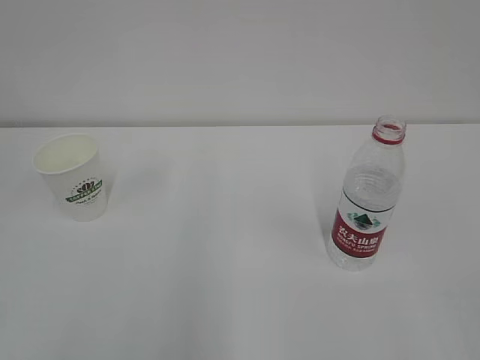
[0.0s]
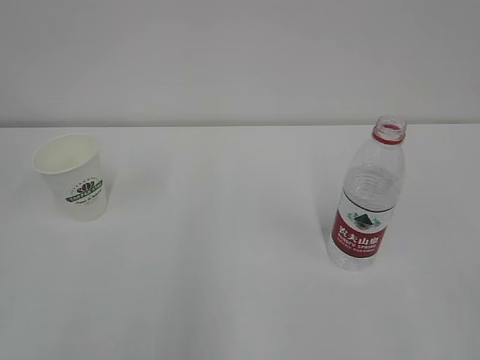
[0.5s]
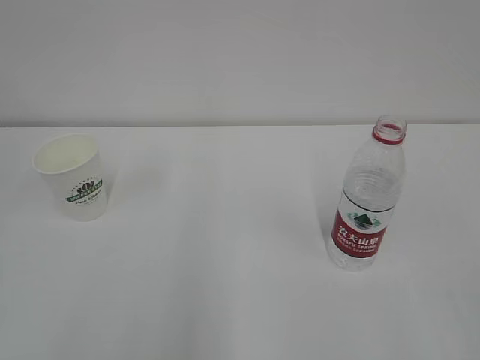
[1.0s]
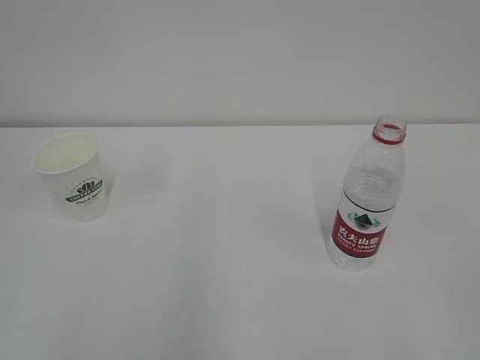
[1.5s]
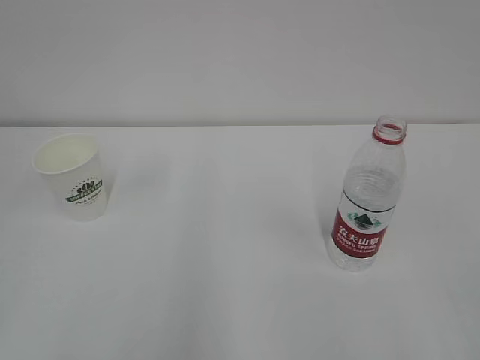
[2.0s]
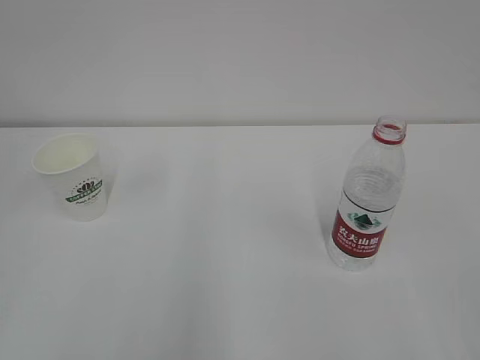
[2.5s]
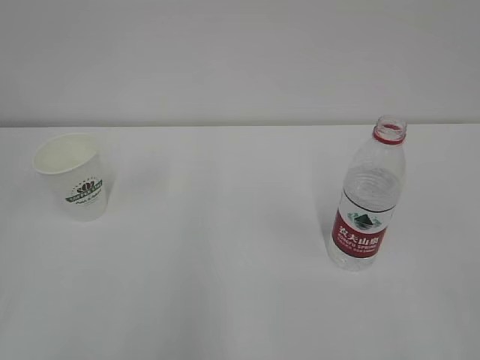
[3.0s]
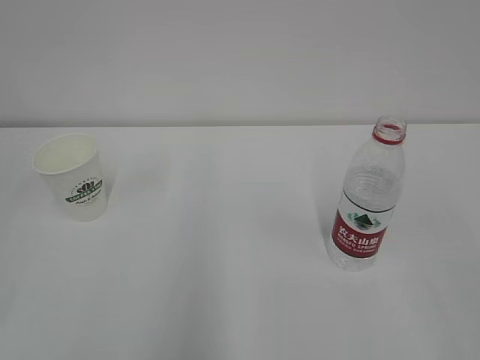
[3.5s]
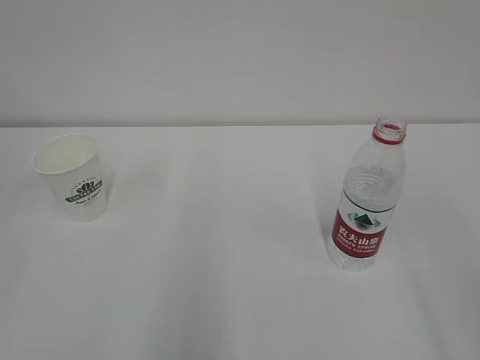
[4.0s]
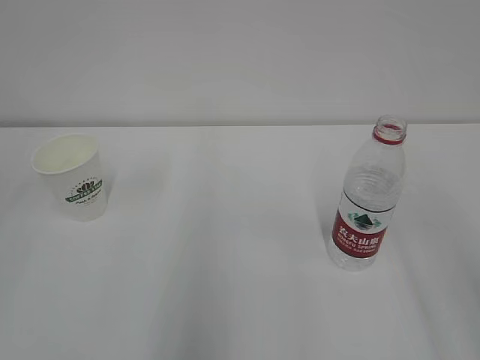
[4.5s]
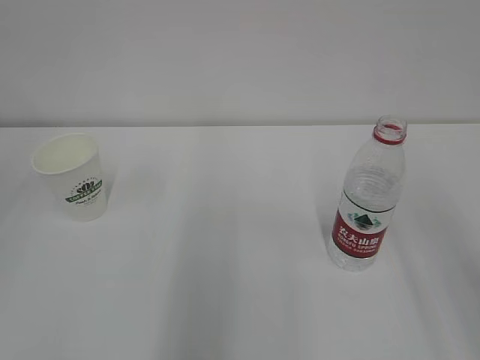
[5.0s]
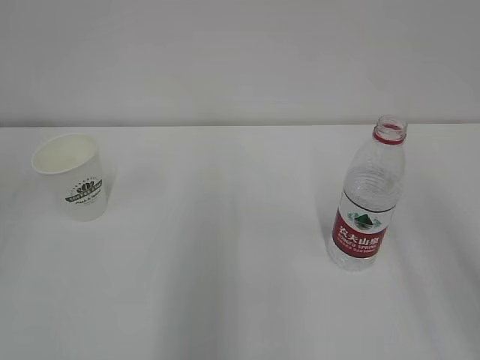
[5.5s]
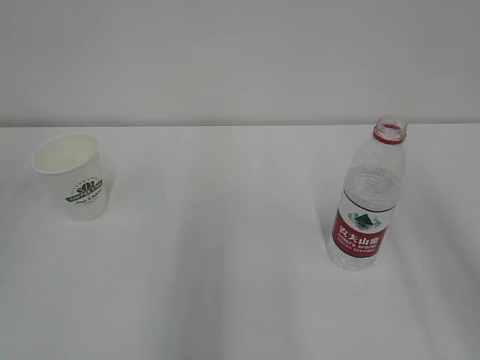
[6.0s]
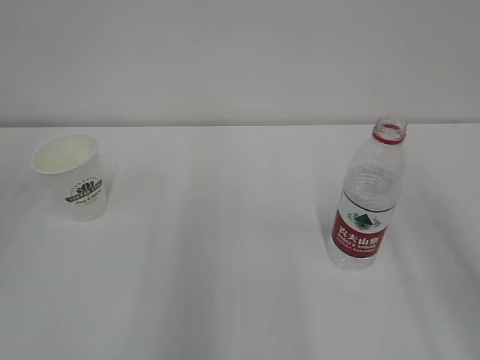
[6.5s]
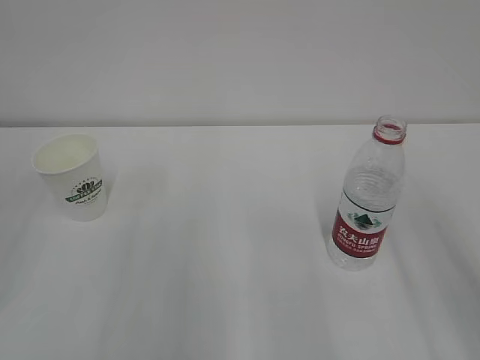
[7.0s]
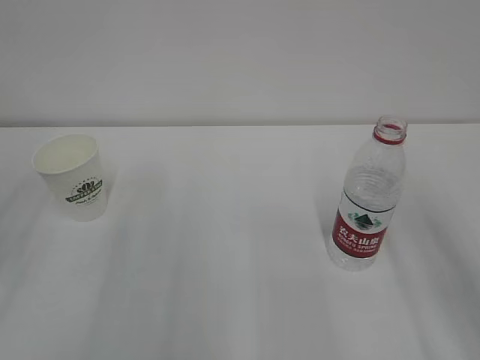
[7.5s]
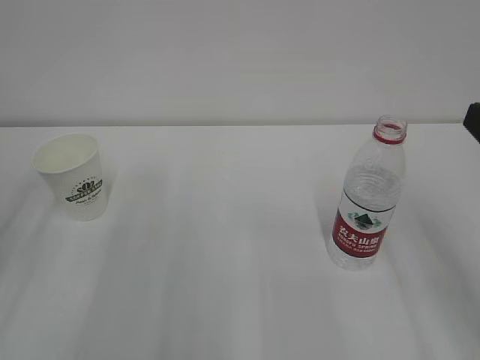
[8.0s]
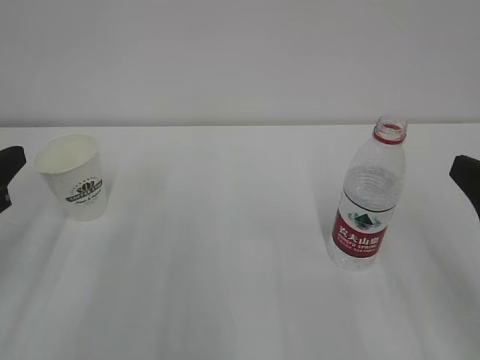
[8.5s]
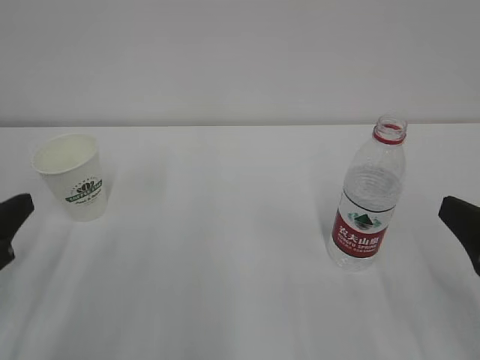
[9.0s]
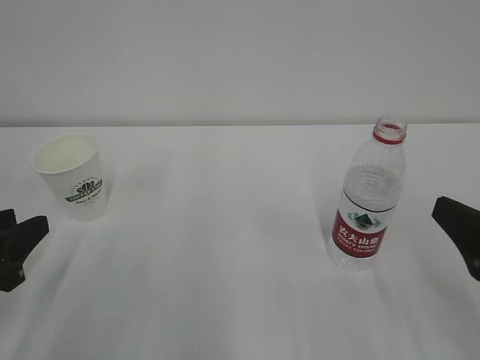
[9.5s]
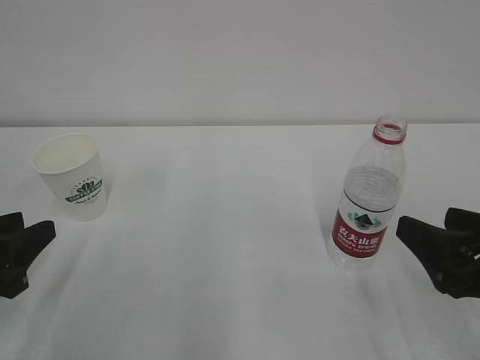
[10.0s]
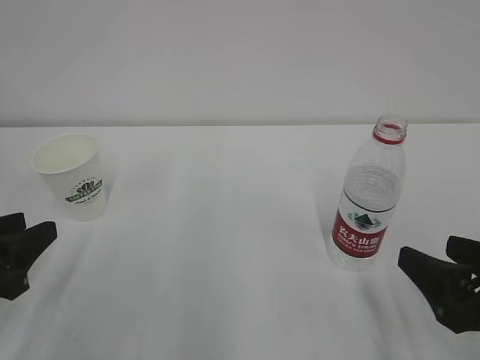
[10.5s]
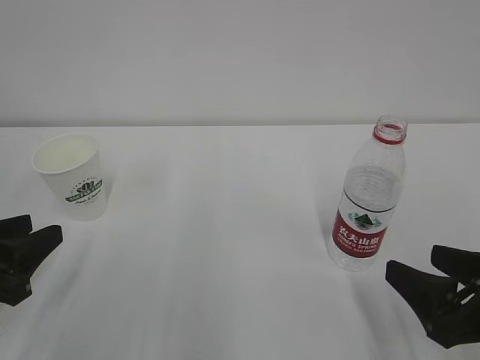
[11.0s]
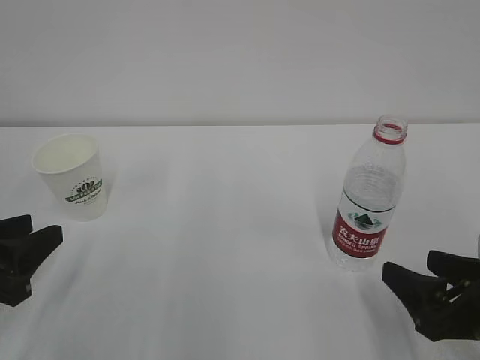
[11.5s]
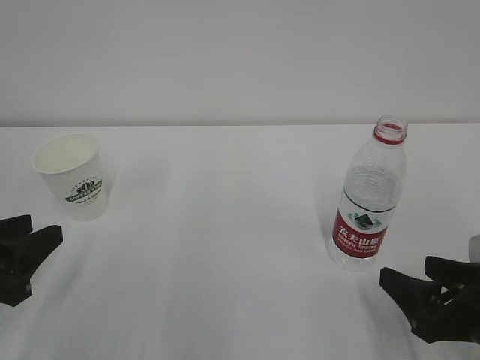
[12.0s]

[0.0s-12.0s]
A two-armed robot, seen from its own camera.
8.0s to 10.0s: Both grippers move downward, approximately 10 cm.
10.0s to 12.0s: The right gripper heads downward, covering approximately 5 cm.

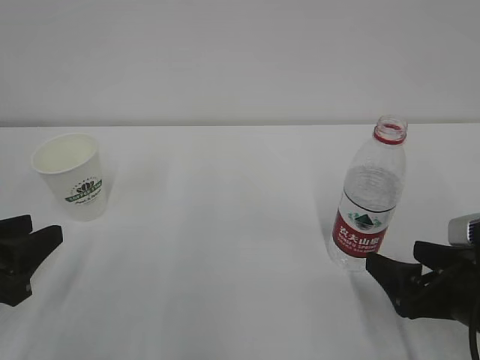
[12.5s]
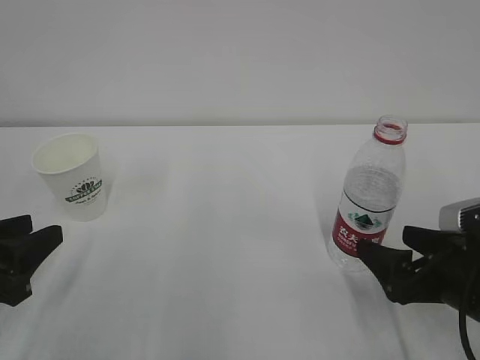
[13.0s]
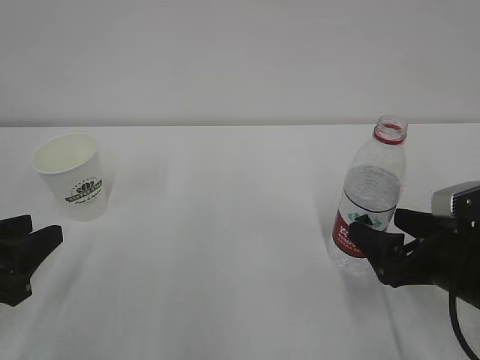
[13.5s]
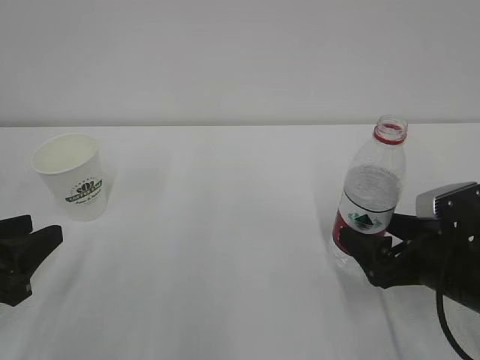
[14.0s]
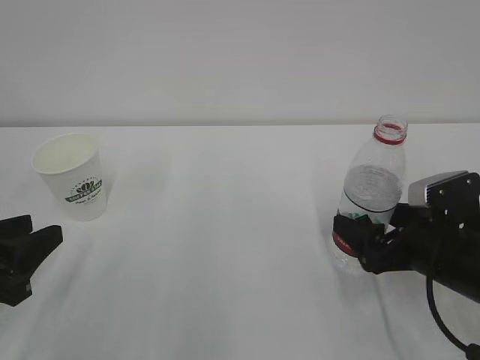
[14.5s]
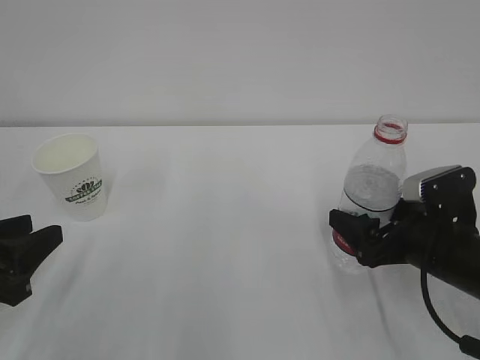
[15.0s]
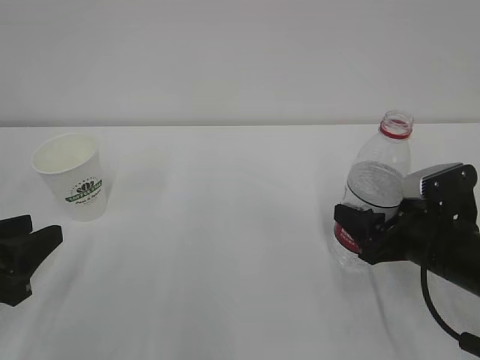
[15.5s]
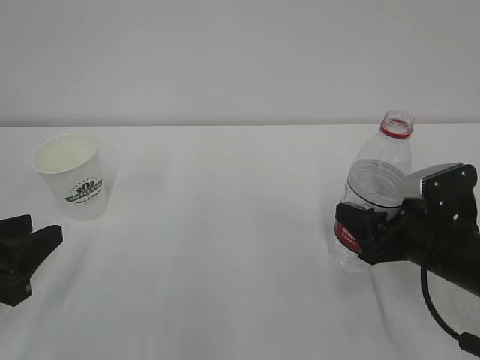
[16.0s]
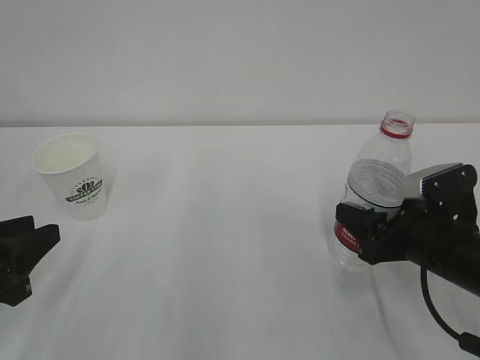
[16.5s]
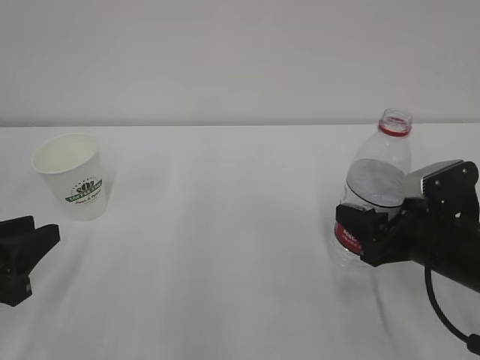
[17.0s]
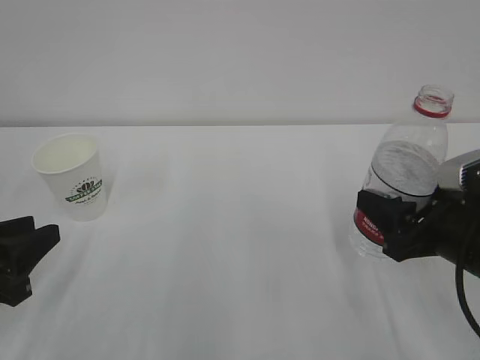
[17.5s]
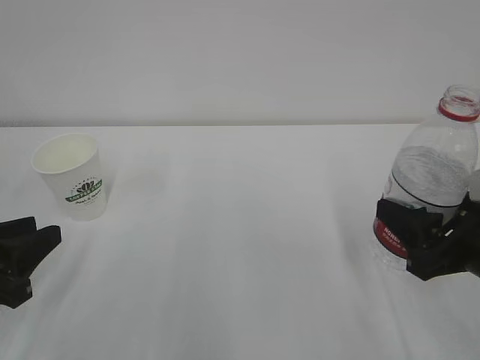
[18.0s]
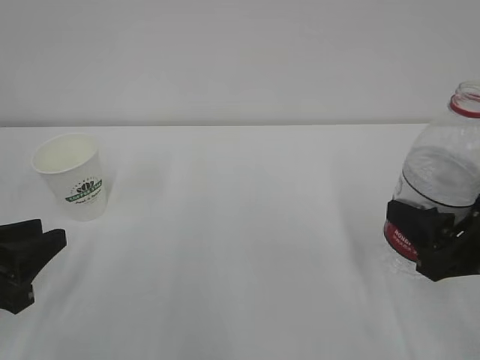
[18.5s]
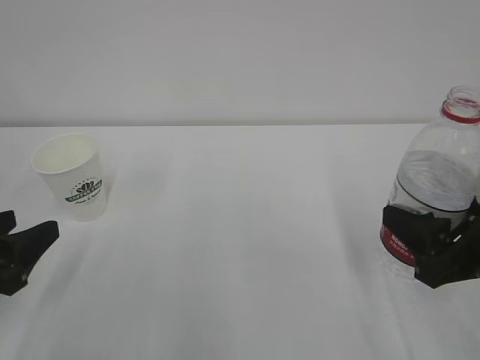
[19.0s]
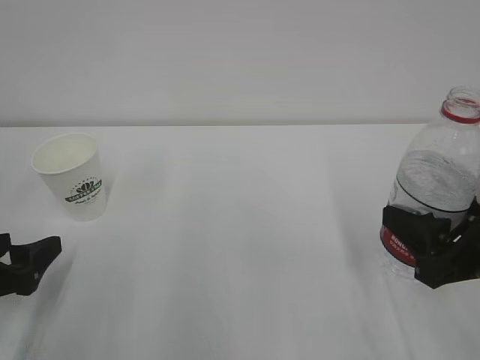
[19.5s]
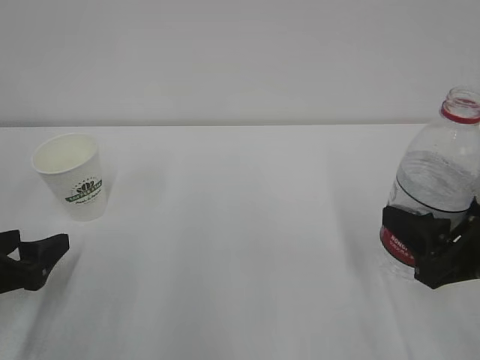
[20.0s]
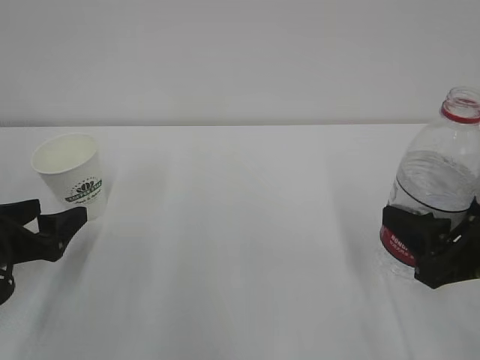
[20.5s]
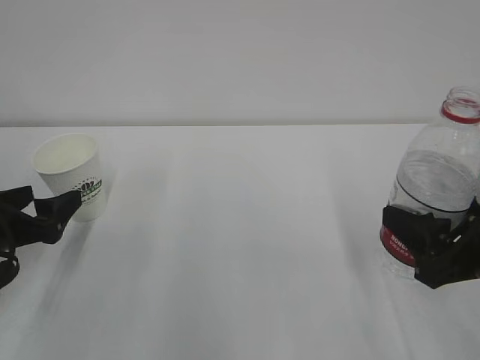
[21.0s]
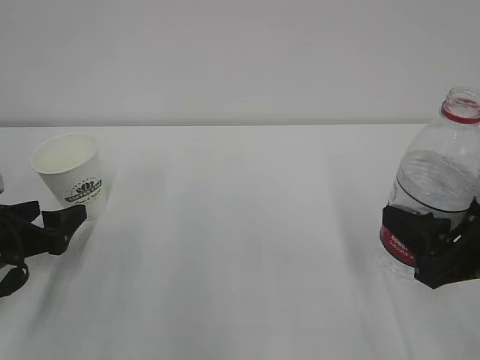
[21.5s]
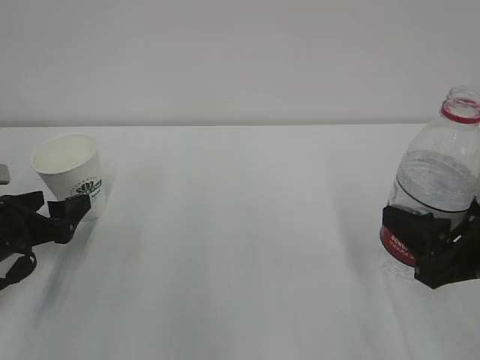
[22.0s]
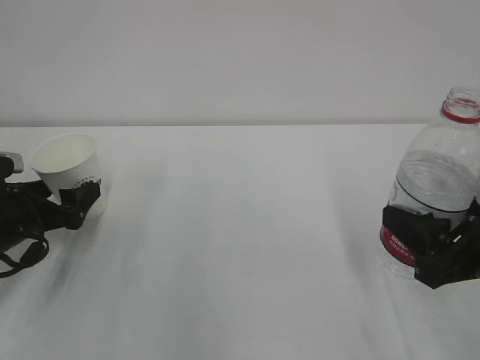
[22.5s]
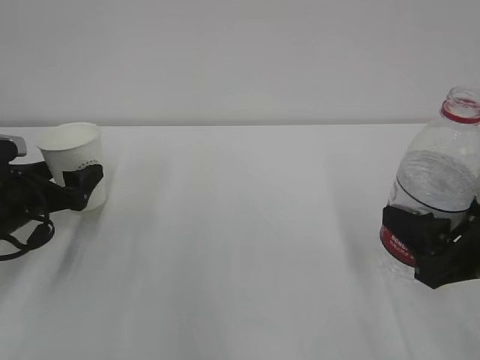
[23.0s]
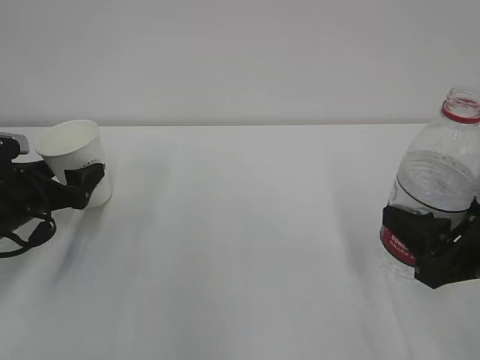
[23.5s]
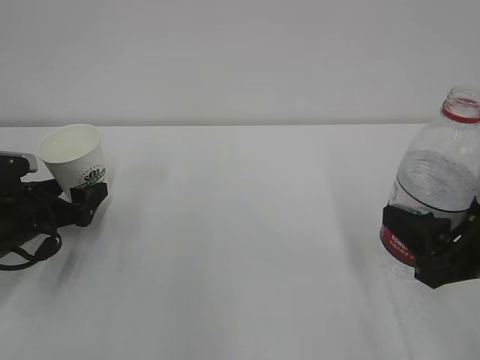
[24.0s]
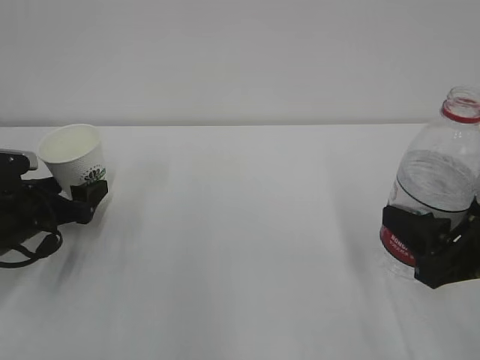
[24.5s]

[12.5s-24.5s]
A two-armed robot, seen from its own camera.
12.5s to 14.5s: The right gripper shifts approximately 5 cm forward.
14.5s to 16.5s: The right gripper closes.
16.5s to 18.5s: The right gripper travels upward and backward by about 10 cm.
18.5s to 20.5s: The left gripper goes roughly 5 cm forward, and opens its fingers.
20.5s to 22.5s: The left gripper heads forward, covering roughly 5 cm.
22.5s to 24.5s: There are only small adjustments of the grippers.

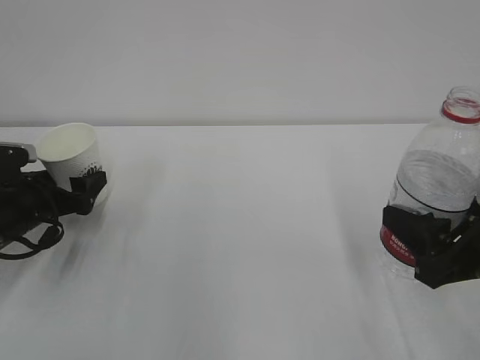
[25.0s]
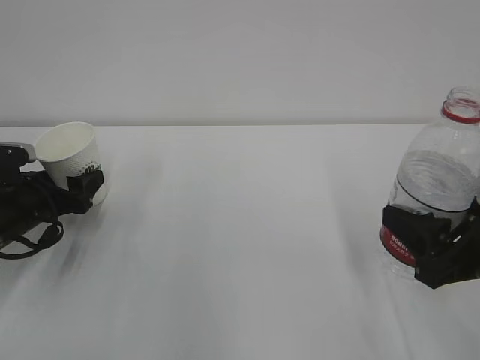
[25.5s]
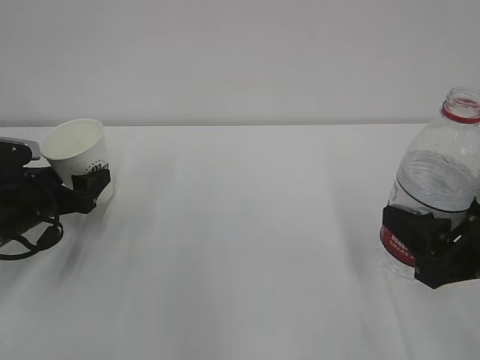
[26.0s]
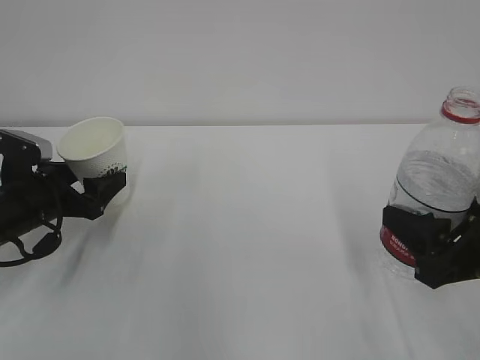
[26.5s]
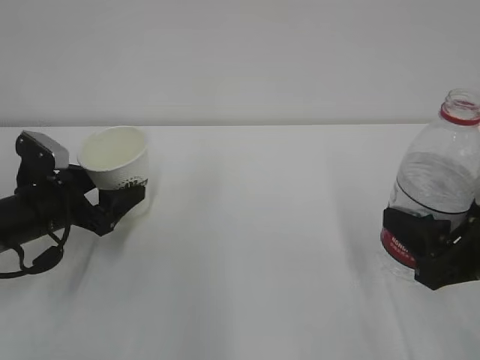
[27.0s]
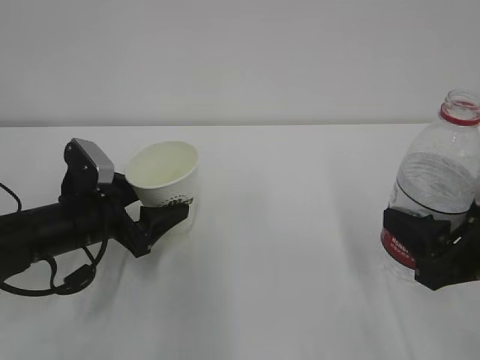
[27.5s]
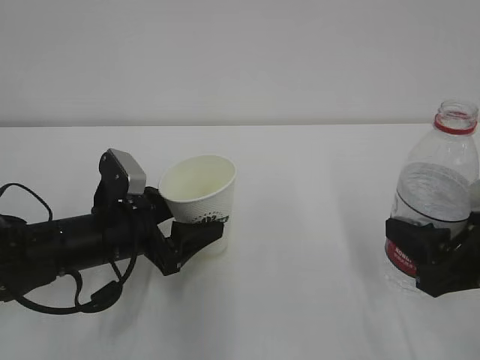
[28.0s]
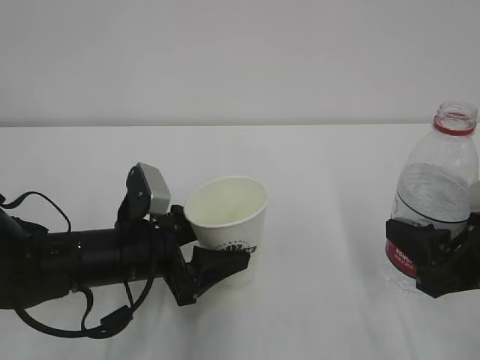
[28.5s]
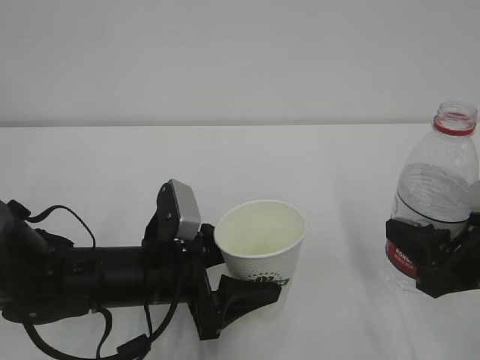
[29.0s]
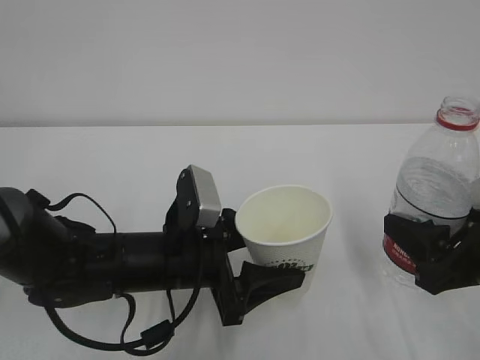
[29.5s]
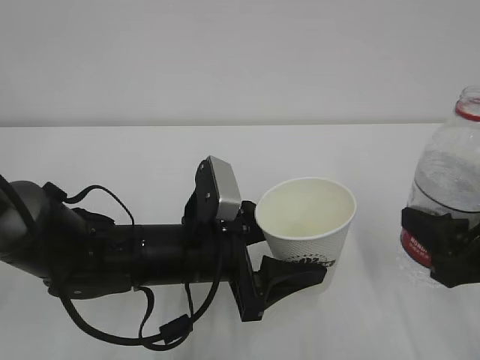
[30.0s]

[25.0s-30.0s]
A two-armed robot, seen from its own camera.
25.0s to 27.5s: The left gripper goes approximately 10 cm to the right.
27.5s to 30.0s: The left gripper goes approximately 15 cm to the right and backward.
